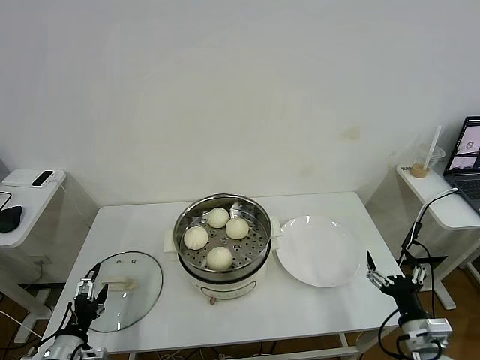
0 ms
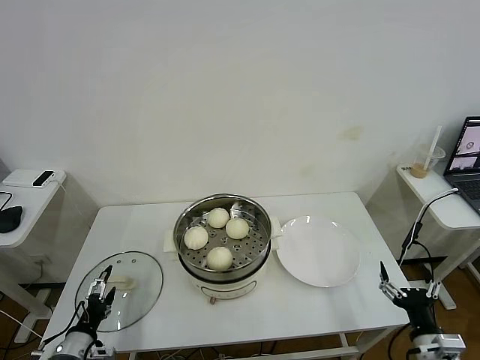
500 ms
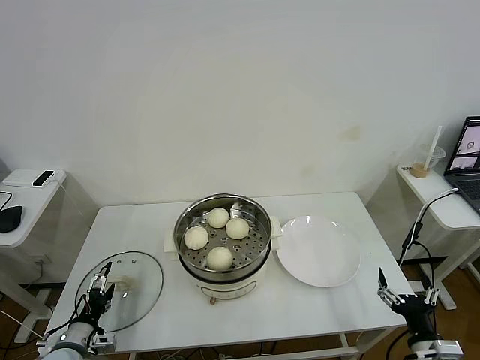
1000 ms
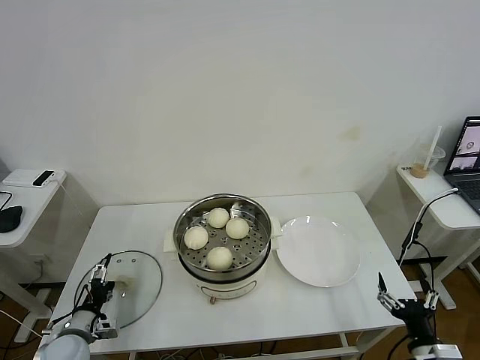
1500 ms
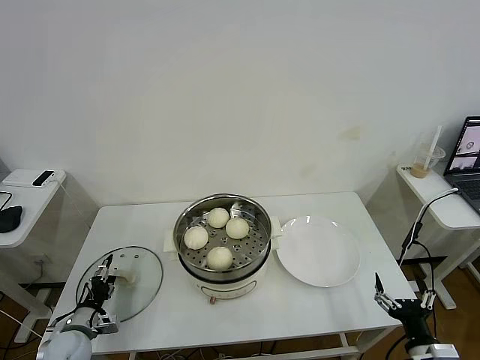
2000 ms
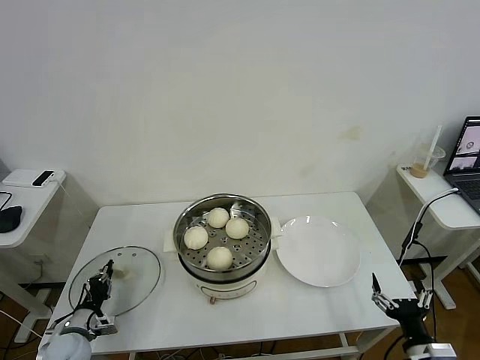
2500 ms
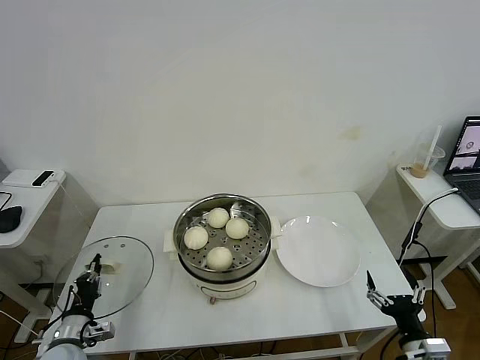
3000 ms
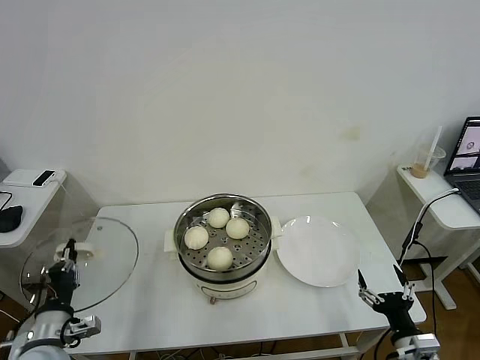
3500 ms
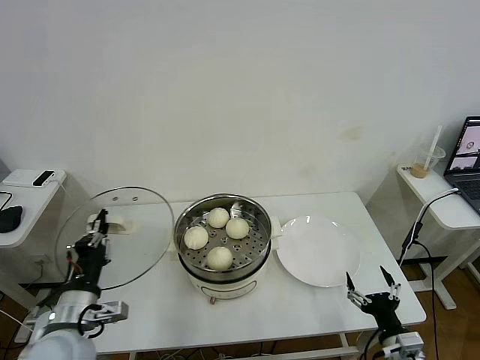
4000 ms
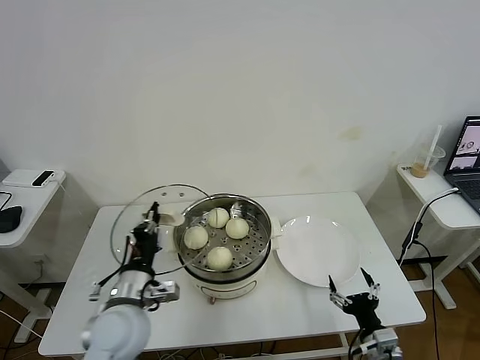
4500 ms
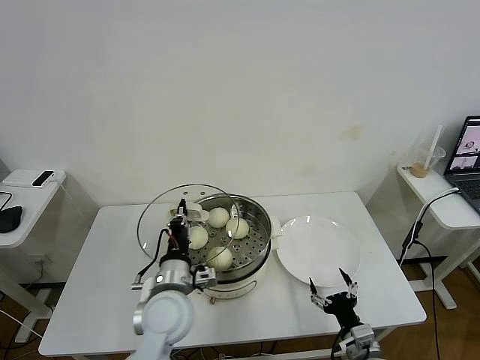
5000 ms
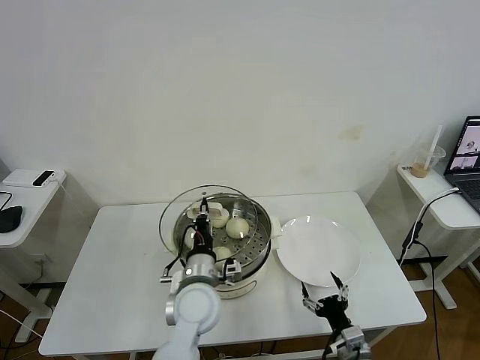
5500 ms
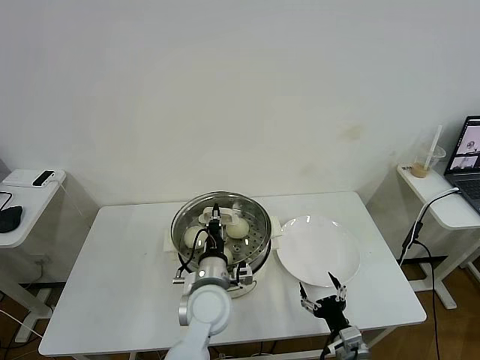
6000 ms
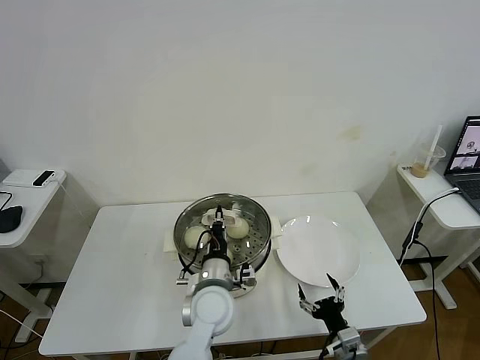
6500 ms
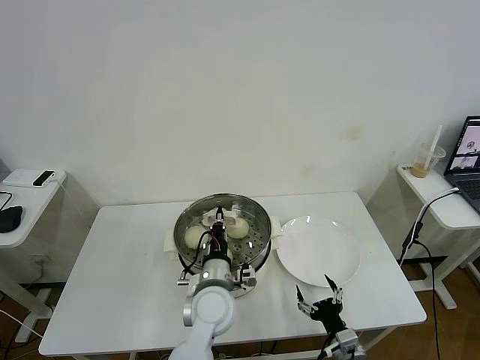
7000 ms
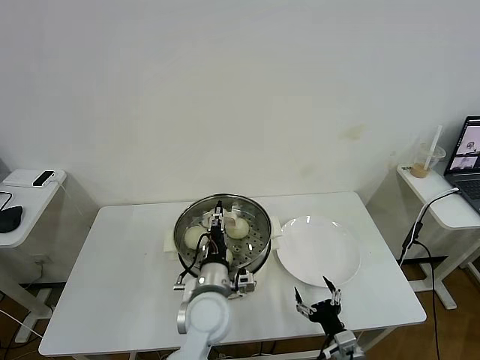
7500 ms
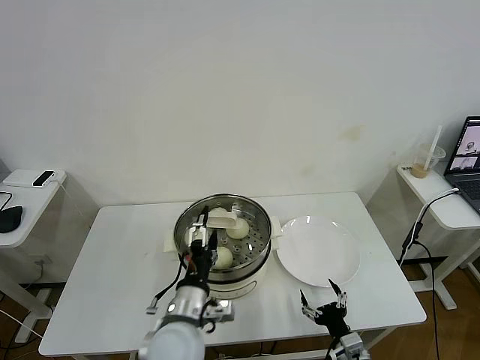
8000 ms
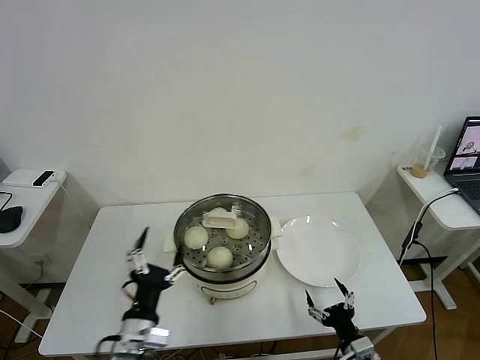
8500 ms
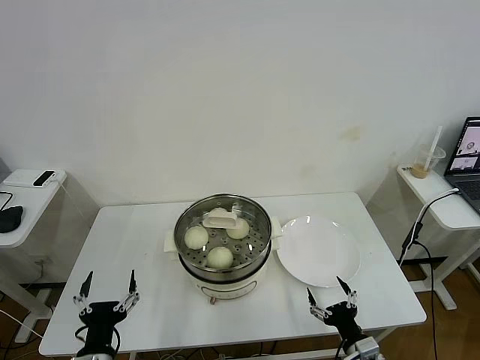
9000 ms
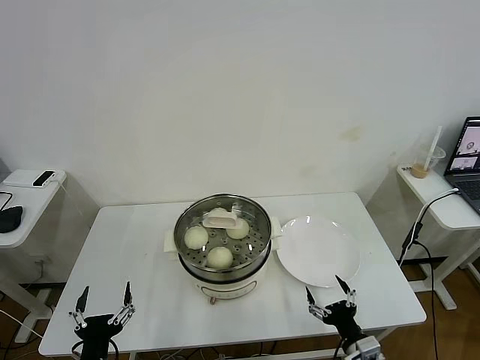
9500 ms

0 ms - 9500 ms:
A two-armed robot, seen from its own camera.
Task of the whole recording: take steamed baozi put them in steamer then cover it.
Step, 0 ms - 2500 ms: Grasp the pot lid with left gripper.
Step, 3000 ms - 8000 ms: Place the pot lid on the steamer with left gripper.
0 ms - 2000 ms: The right gripper goes about 5 cm backward; the left gripper heads forward and downward, covering approximately 10 cm.
2000 ms - 4000 ms: The left gripper heads upward and to the right, covering approximately 20 cm, and closes its fingers.
4000 ms - 5500 ms: The left gripper travels to the right and forward by about 25 cm. The right gripper goes approximately 10 cm to the left.
5500 ms - 7500 ms: The left gripper opens its fingers.
7500 ms - 9500 ms: The left gripper shifts about 30 cm to the left and backward, and opens.

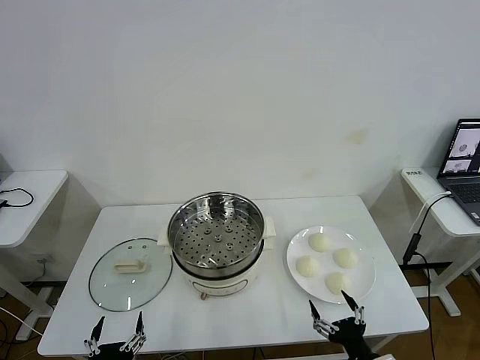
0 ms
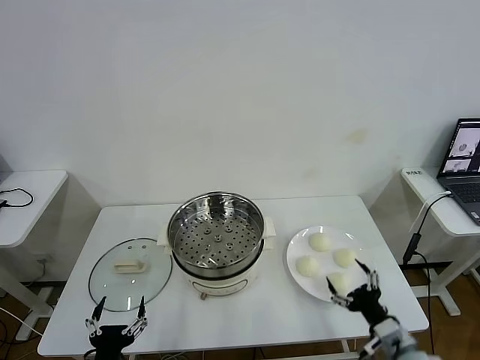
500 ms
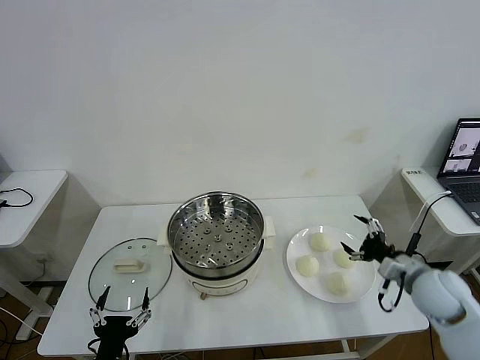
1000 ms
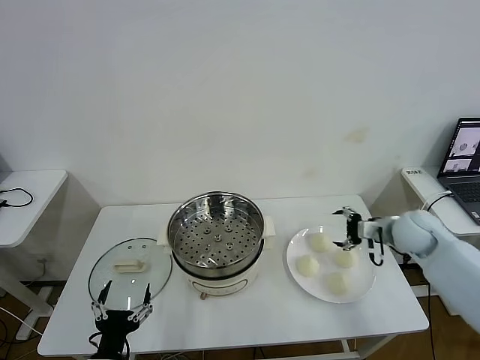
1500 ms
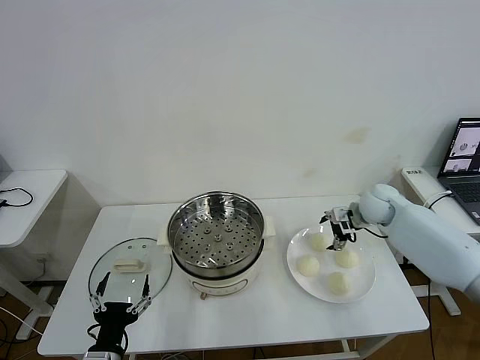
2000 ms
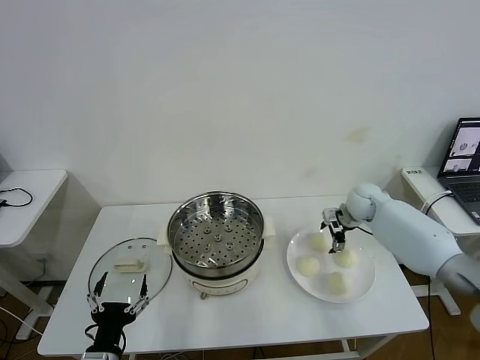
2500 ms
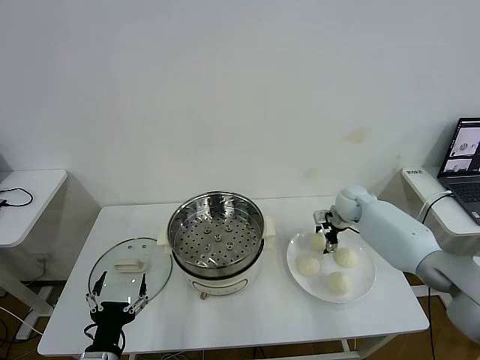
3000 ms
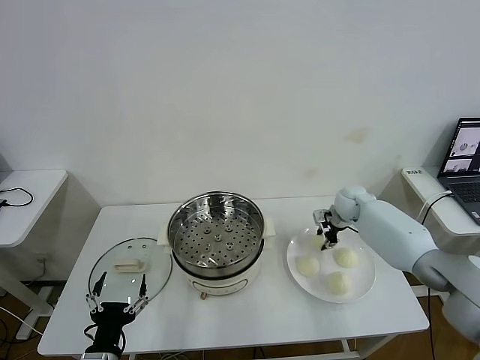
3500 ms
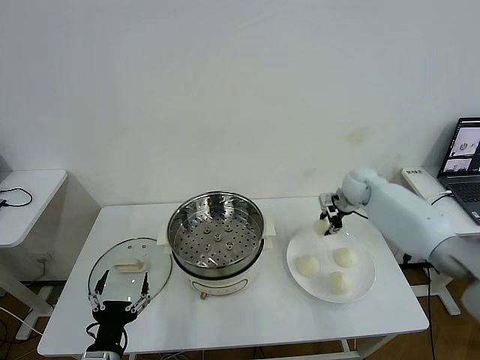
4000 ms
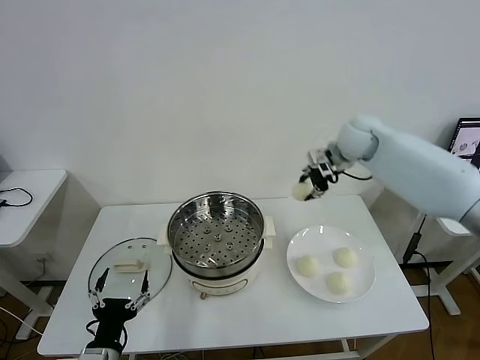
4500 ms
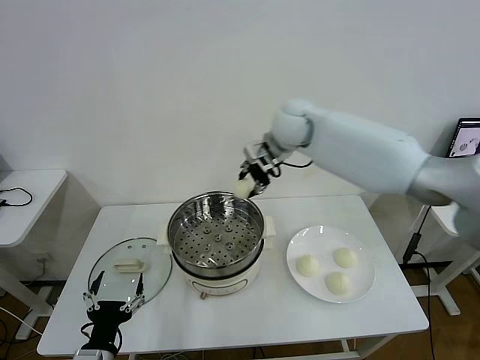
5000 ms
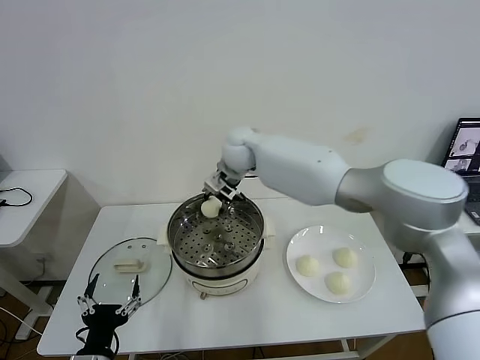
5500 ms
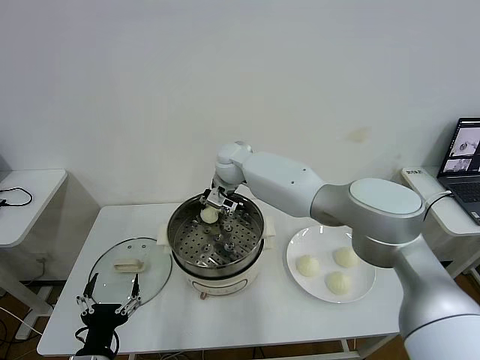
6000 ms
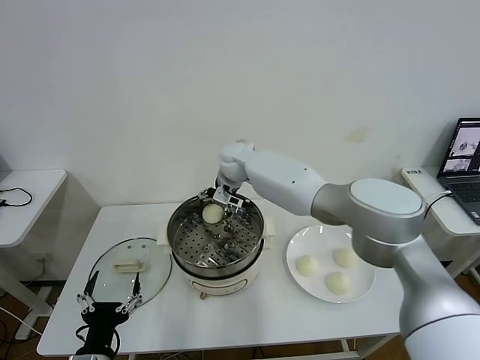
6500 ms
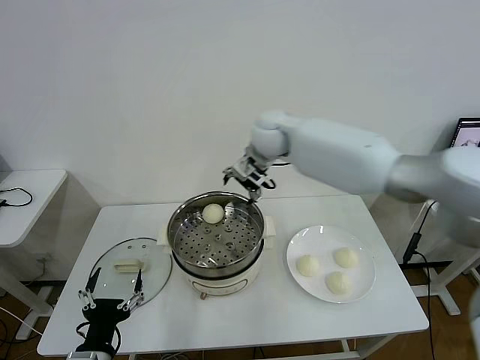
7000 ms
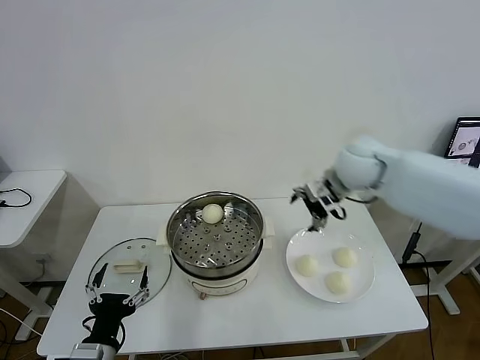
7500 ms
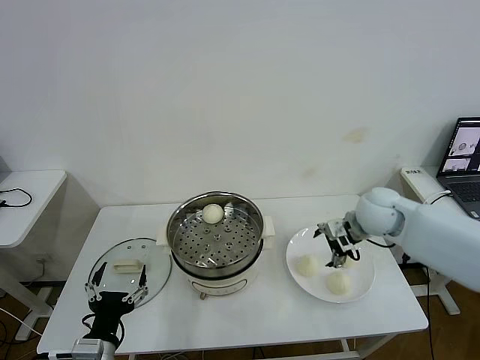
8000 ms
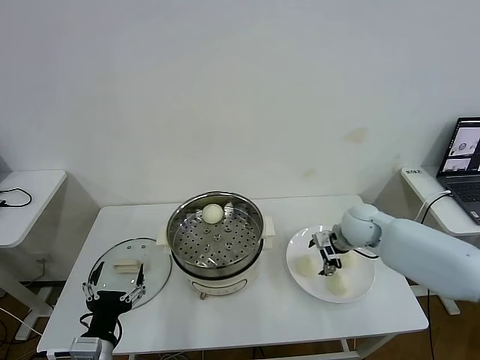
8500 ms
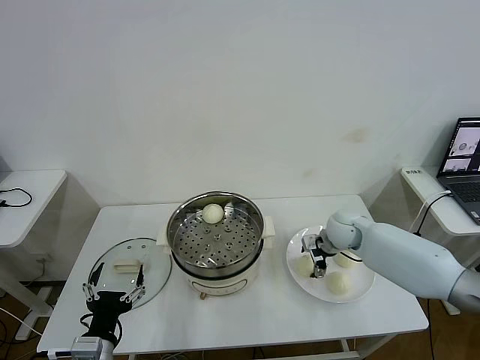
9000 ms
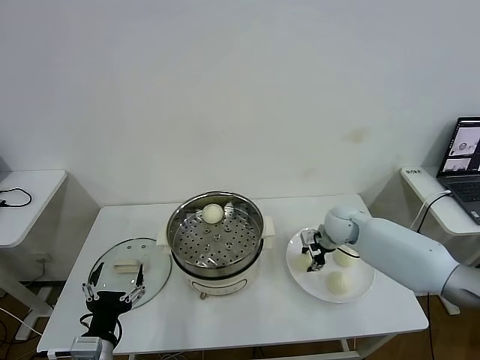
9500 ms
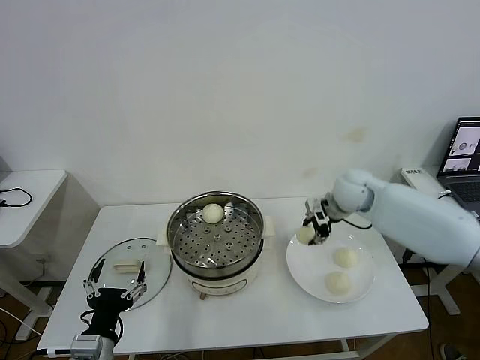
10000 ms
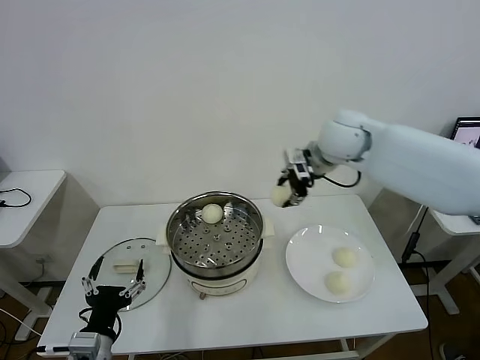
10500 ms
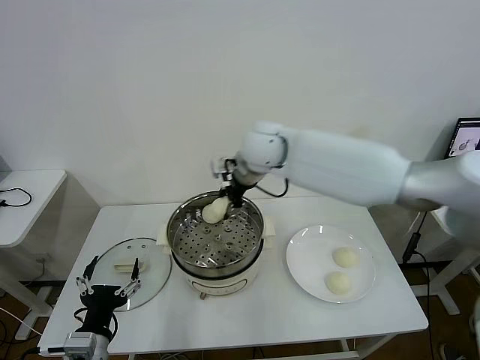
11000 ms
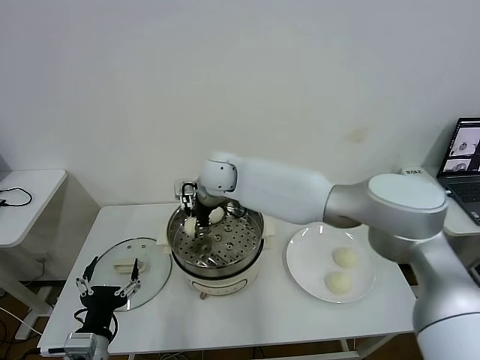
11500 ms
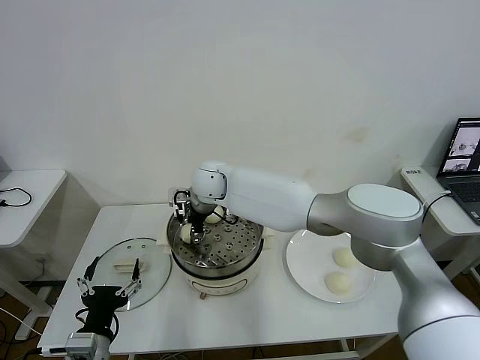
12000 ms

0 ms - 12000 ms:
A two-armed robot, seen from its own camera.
Task of the whole recording: take steamed baozi put them in steamer then cover it.
Step, 0 ms - 3000 ms: Grasp the baozi in the plate with right gripper.
Step, 3500 ms - 6000 ms: Place the baozi on the steamer with right gripper.
Step, 6500 ms - 9000 ms: Grasp the baozi in the plate with right gripper.
2000 ms - 4000 ms: The right gripper heads forward, covering about 5 cm, and closes.
4000 ms - 6000 ms: The right gripper is displaced to the left by approximately 35 cm.
6000 ms - 8000 ms: The right gripper travels to the right and backward by about 35 cm, and opens up.
8000 ms - 10000 ms: The right gripper heads forward, covering some 5 cm, travels downward and back again, about 10 cm each way, and closes its fingers.
10000 ms - 12000 ms: The right gripper travels to the left by roughly 35 cm.

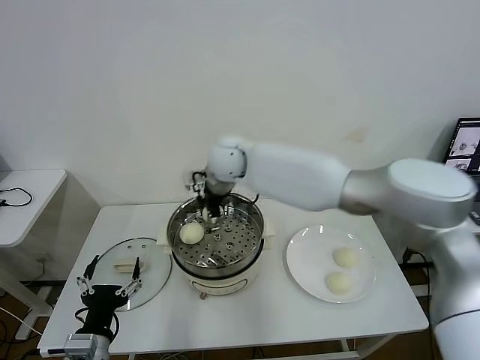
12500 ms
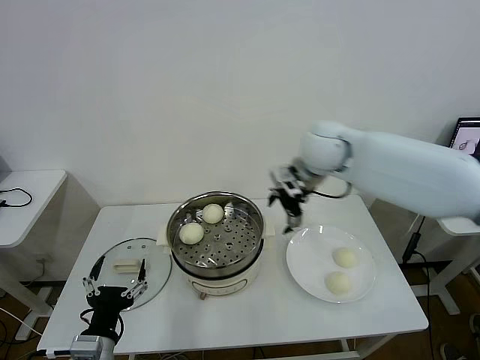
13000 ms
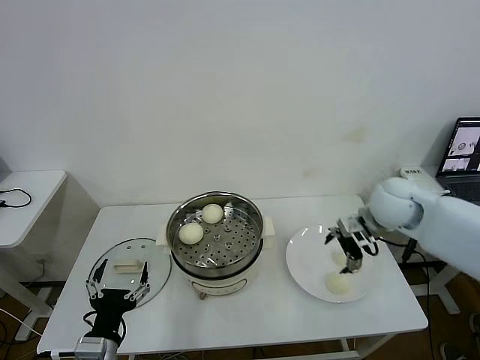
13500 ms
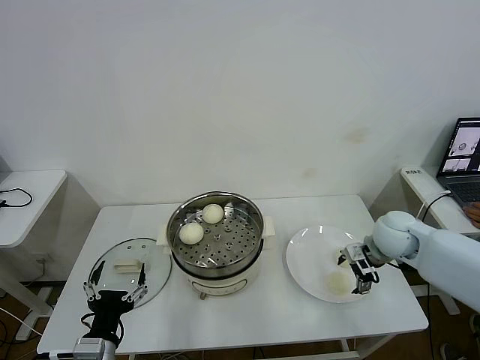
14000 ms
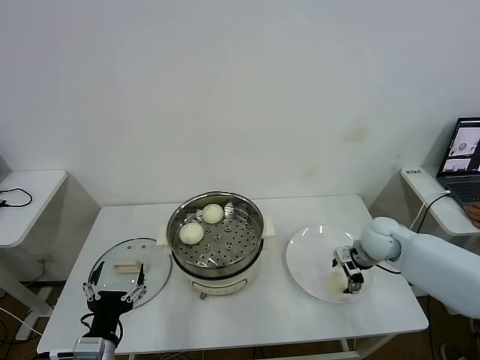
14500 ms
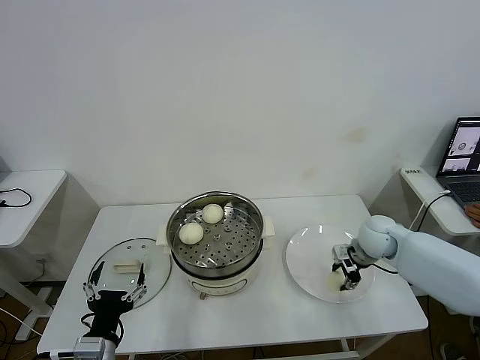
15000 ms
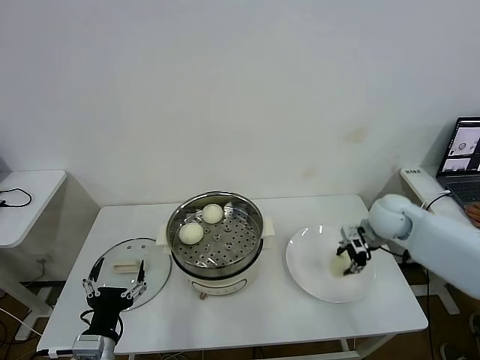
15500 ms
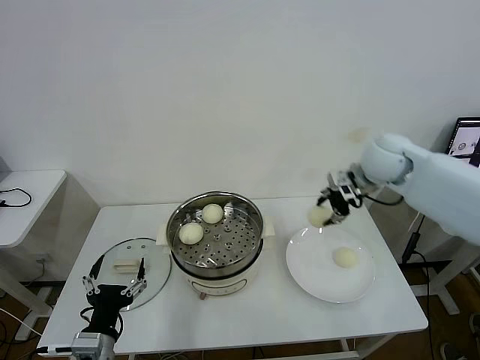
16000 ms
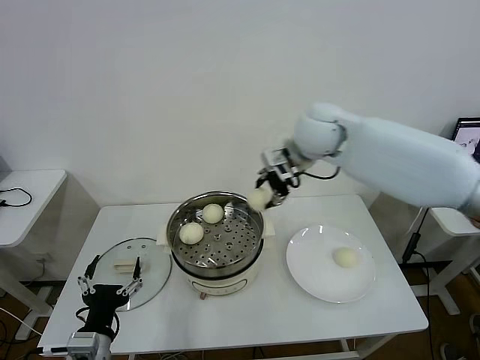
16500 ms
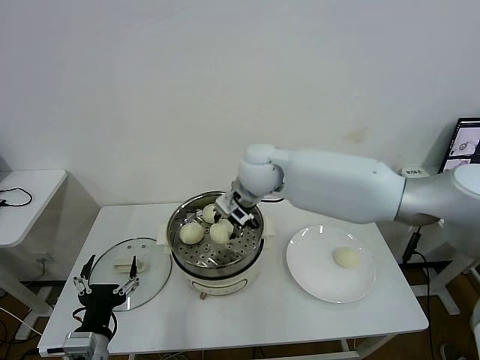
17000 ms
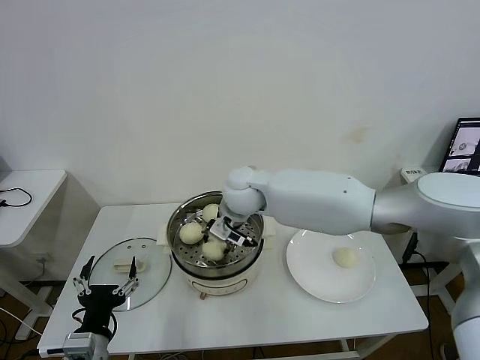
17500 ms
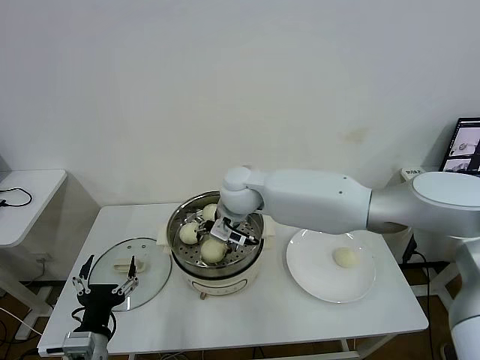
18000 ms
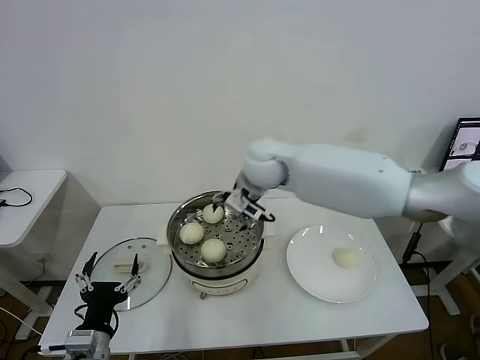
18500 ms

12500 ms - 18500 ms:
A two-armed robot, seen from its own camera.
Task of the whole recording: take steamed baozi put them in steamer then cover it.
Step, 12500 ms - 14500 ms: Grasp the baozi in the plate with right gripper.
Step, 15000 ms - 18000 ms: Place the baozi on the steamer with right gripper.
12500 ms - 14500 ms: The right gripper shifts roughly 40 cm to the right and downward.
14500 ms - 16500 ms: The right gripper is displaced upward and to the left by roughly 30 cm, and closes.
16500 ms - 18500 ms: The right gripper shifts approximately 10 cm to the left and downward, and opens up.
